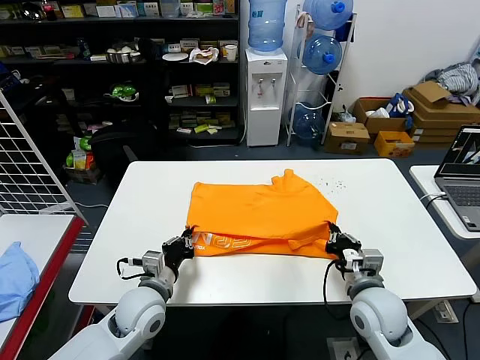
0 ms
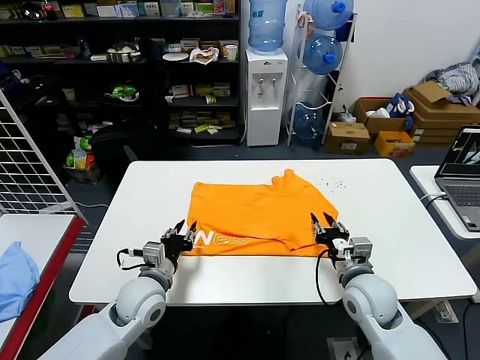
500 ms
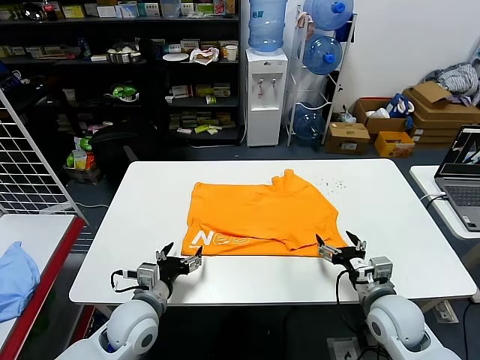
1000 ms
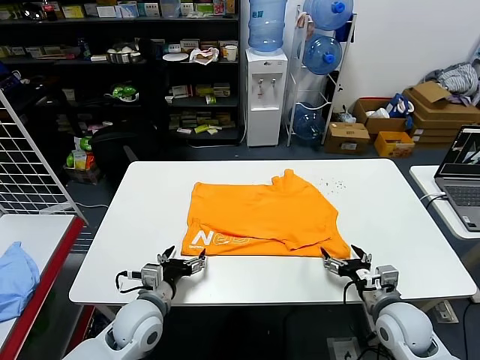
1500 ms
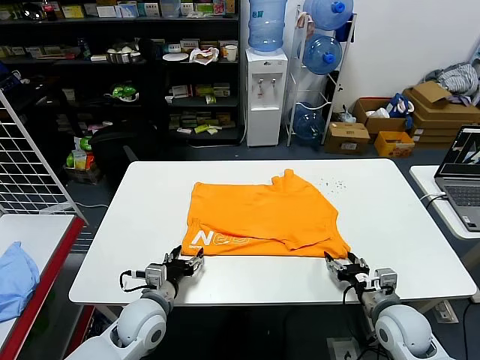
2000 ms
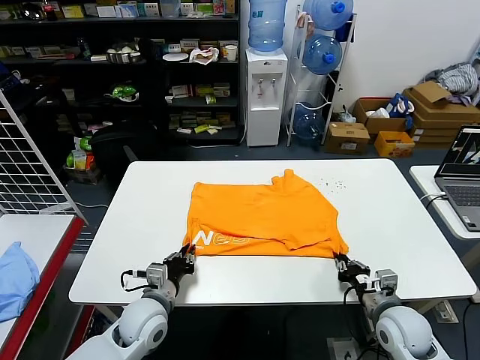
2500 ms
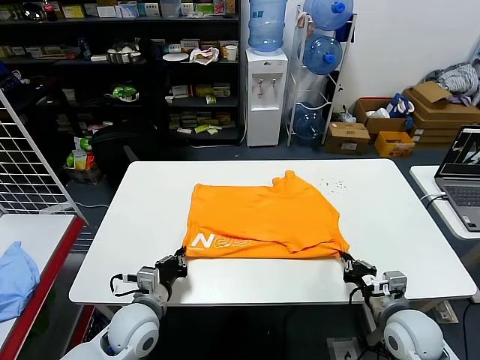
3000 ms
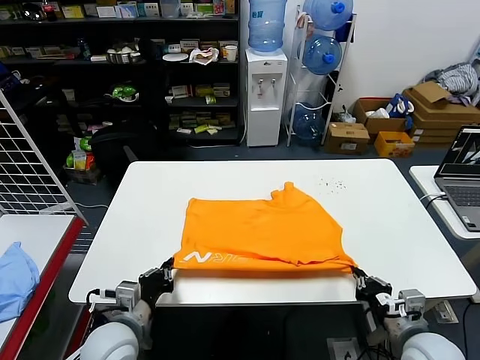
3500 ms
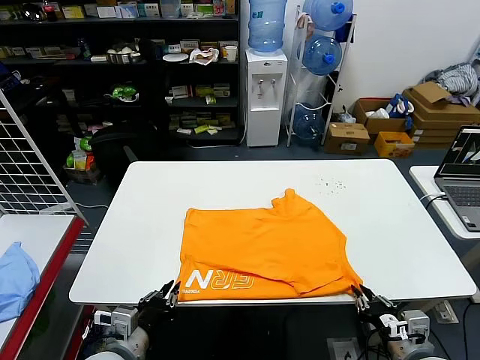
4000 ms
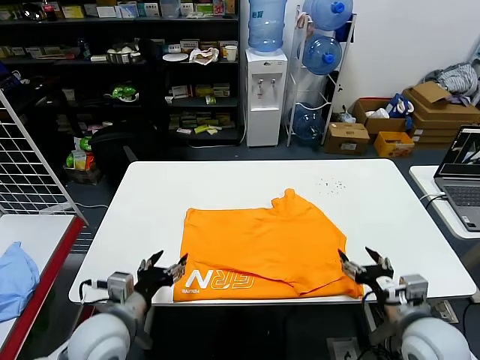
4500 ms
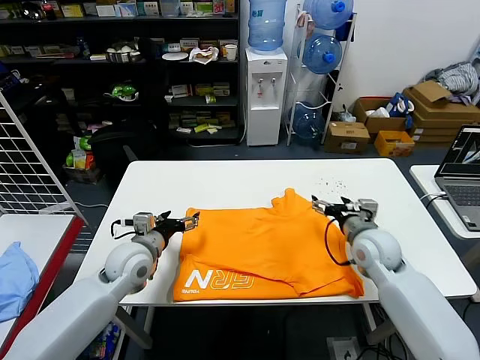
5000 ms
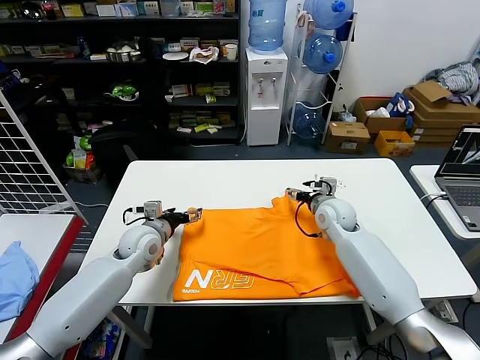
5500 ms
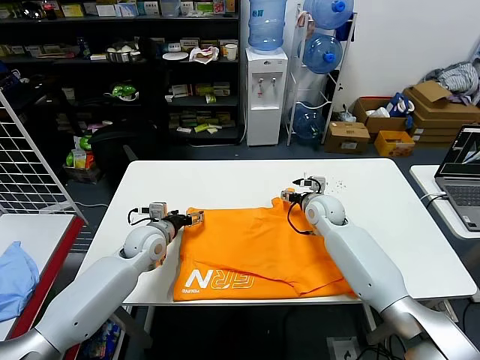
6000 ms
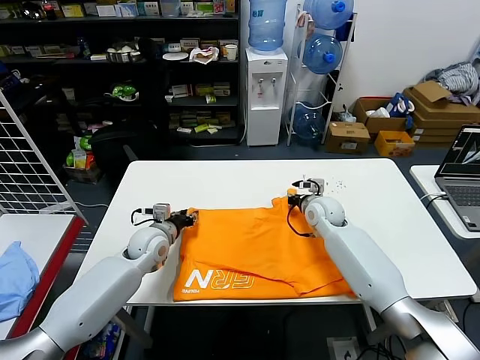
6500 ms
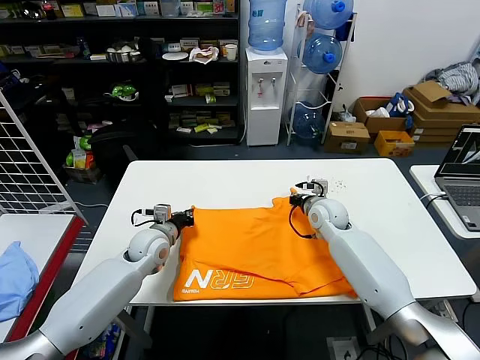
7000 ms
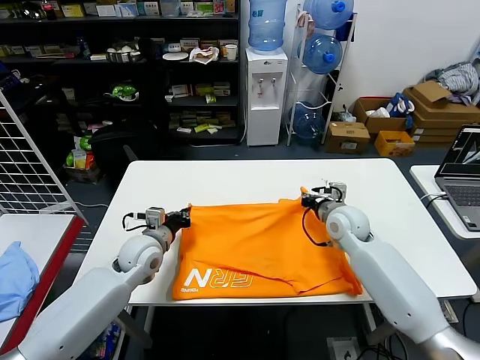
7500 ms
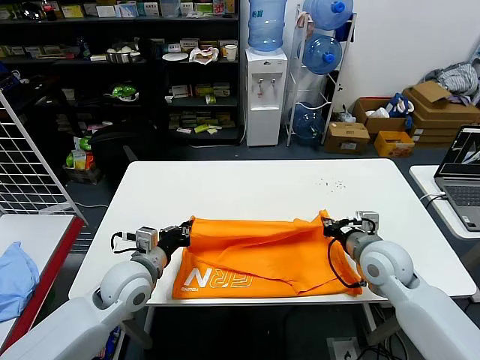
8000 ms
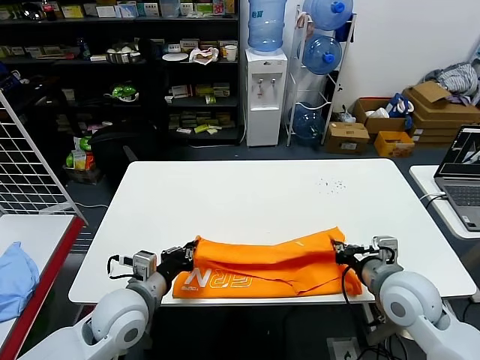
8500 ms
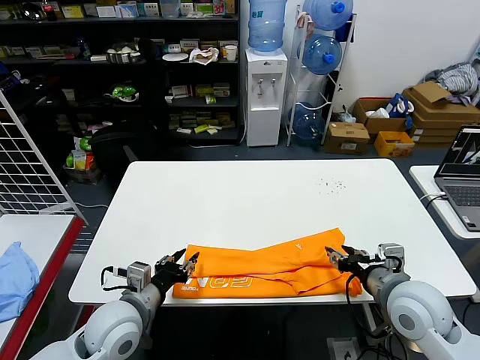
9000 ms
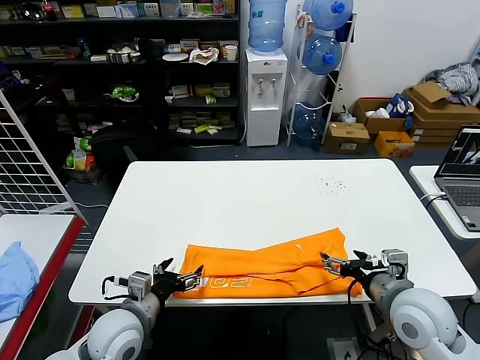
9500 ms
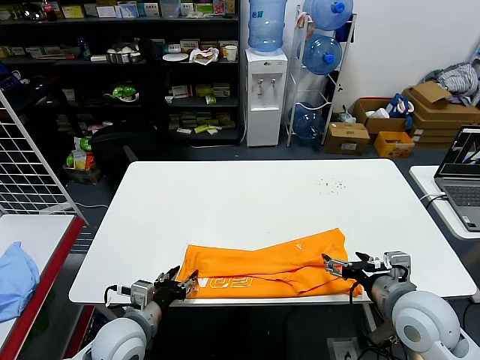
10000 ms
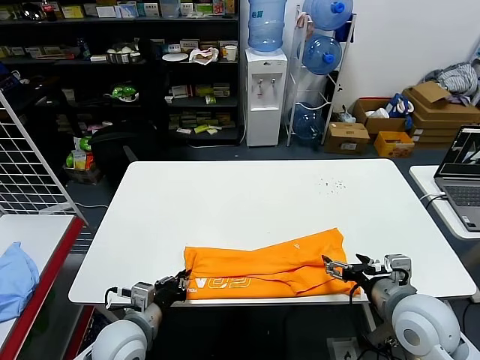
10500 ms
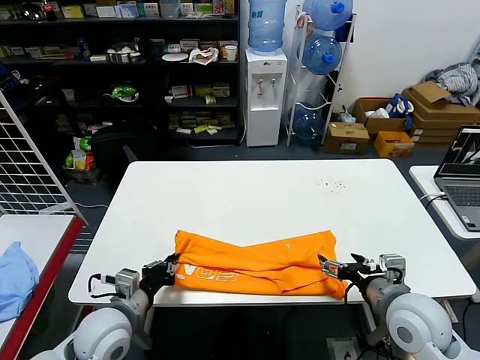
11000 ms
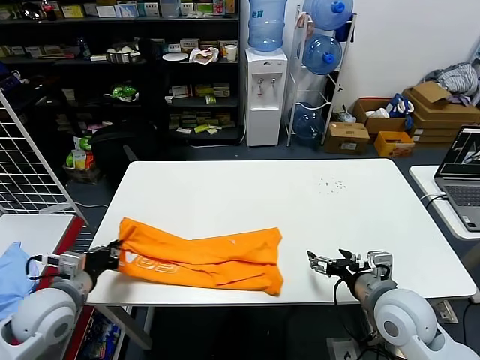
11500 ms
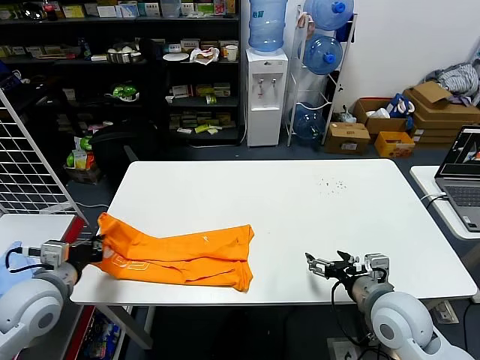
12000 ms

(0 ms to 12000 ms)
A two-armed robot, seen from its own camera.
Task of the whole recording: fold and organize the clothes.
Step, 500 ms - 4000 ms: Drag the clothes downward with both gripper.
Step, 4500 ms - 6500 ms: use both grippers simultaneously to clamp the upper edge of the clothing fabric.
Step, 7000 ms - 8500 ms: use both grippers to drag the upper edge of the fabric backward and fold it over the lower edge.
Step, 9000 ms - 10000 ms: use the left gripper to clamp the left edge of the fabric.
0 ms - 2000 ms: The right gripper shifts approximately 10 cm to the right and downward, and opens its fingers; the left gripper opens up.
2000 ms - 4000 ms: Both grippers travel together backward and upward, about 10 cm. The left gripper closes.
4000 ms - 6000 ms: The two grippers go roughly 35 cm forward. The right gripper opens its fingers. Meanwhile the left gripper opens its fingers.
6000 ms - 8000 ms: The right gripper is displaced backward by roughly 20 cm, and closes its fingers. The left gripper travels backward by approximately 10 cm, and closes up.
8000 ms - 10000 ms: The right gripper travels backward by roughly 10 cm, and opens up, while the left gripper is displaced backward and downward by roughly 10 cm, and opens its fingers.
10000 ms - 12000 ms: The left gripper heads to the left and upward, covering roughly 20 cm, and closes.

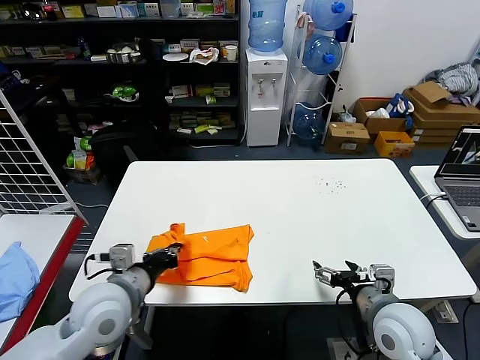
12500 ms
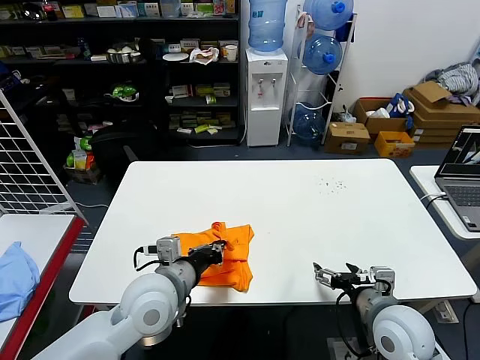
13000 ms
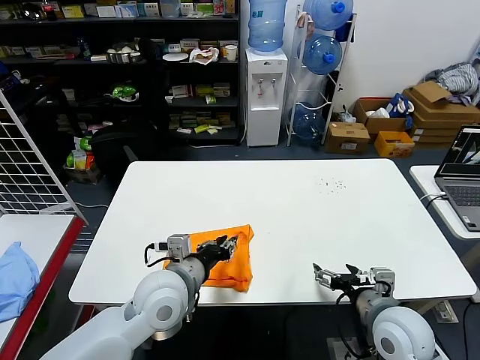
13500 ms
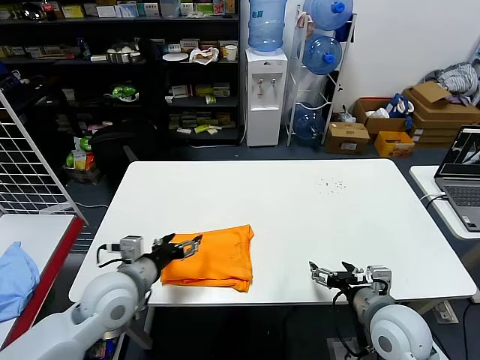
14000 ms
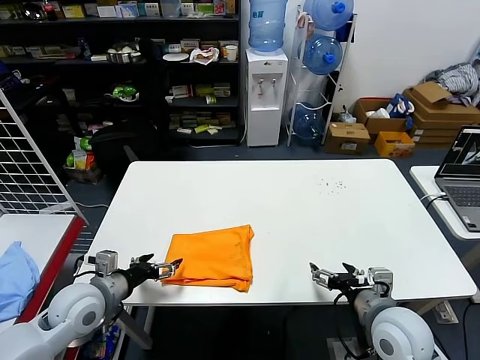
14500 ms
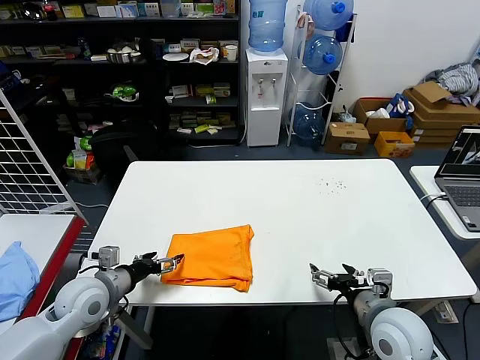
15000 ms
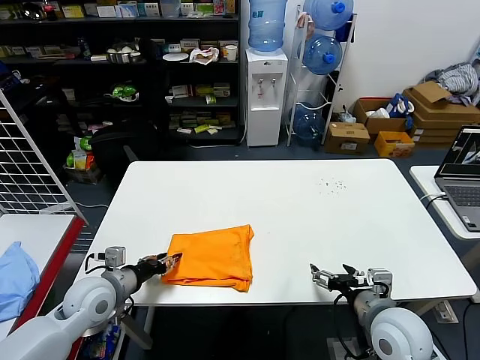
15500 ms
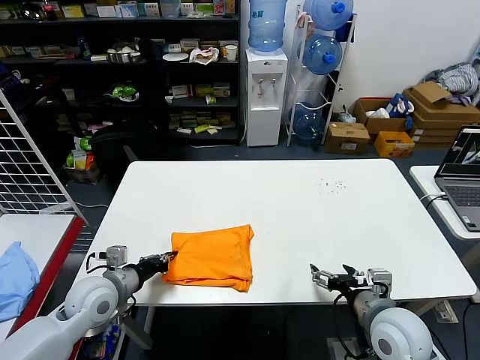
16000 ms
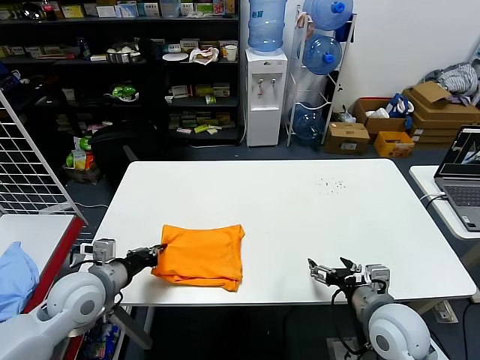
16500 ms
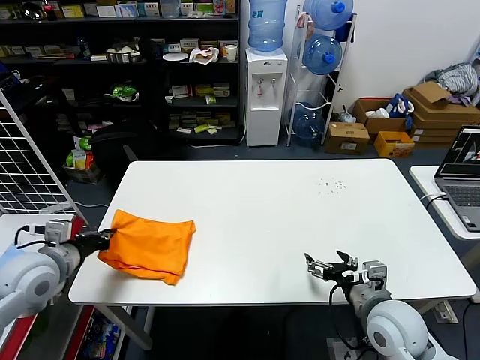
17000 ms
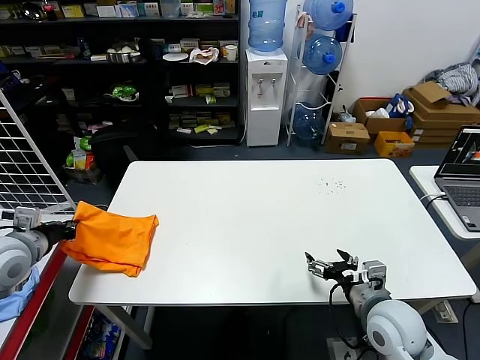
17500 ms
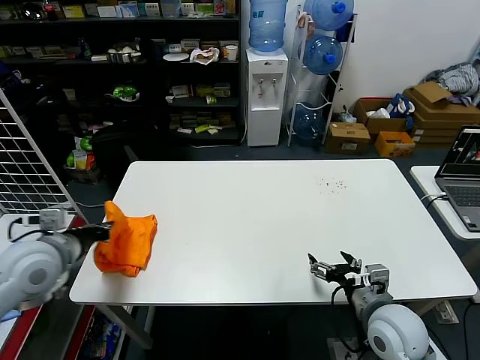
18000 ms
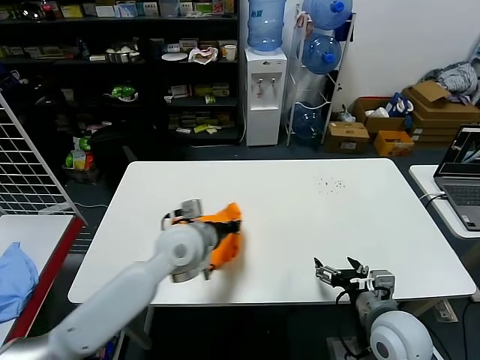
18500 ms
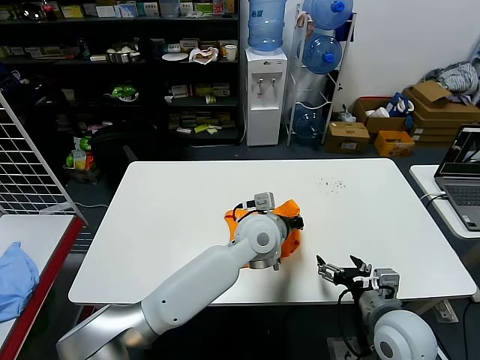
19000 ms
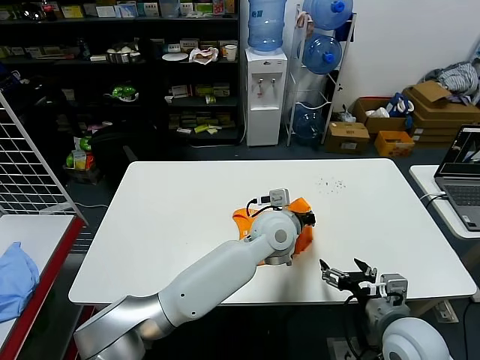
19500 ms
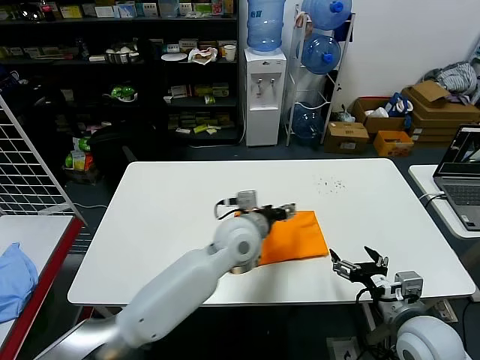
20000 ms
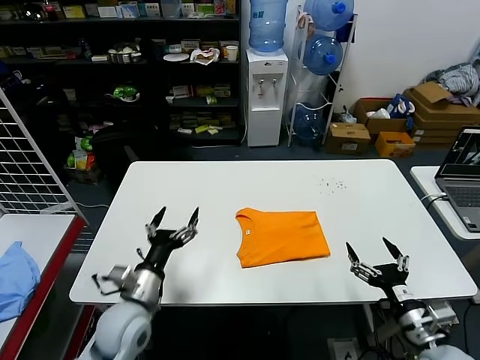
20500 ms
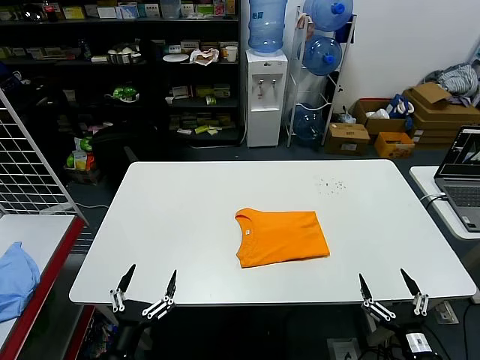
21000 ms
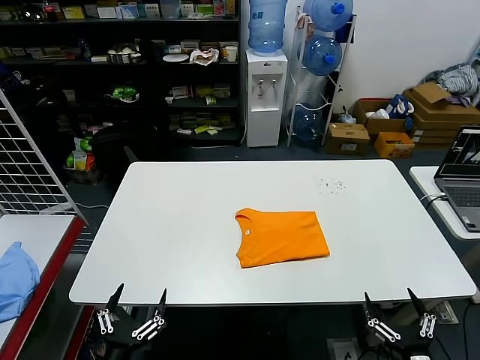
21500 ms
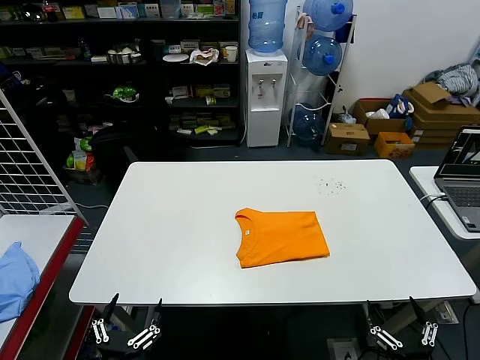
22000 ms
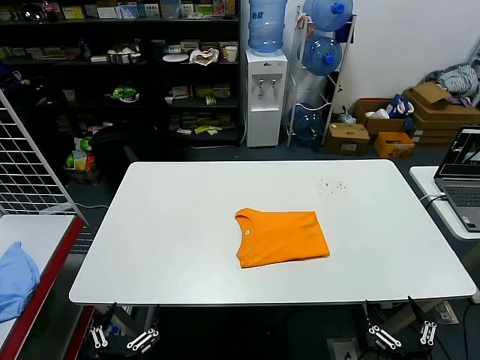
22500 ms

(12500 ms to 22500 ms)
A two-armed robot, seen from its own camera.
Task of the whole recording: fold and organize the clothes.
Step, 14000 ms - 19500 ms: Flip the folded clothes over with left gripper.
12500 ms - 14500 ms: The left gripper travels to the left and downward by about 10 cm, and opens its fingers.
14500 ms - 16500 ms: The left gripper closes its fingers.
16500 ms - 18500 ms: The left gripper travels to the right and forward by about 20 cm.
18500 ms - 20500 ms: The right gripper heads to the right, covering roughly 5 cm, while the left gripper shifts approximately 15 cm downward and backward, reaches some 20 cm to the right, then returns, and opens.
20500 ms - 22500 ms: The right gripper is displaced backward and downward by about 15 cm; the left gripper shifts about 25 cm backward.

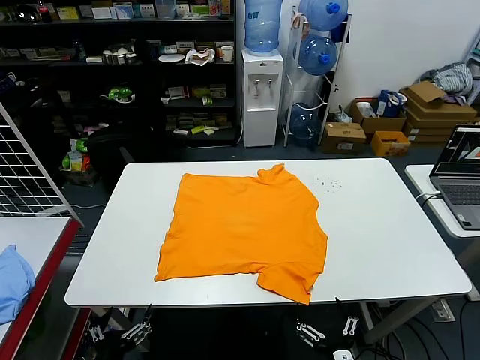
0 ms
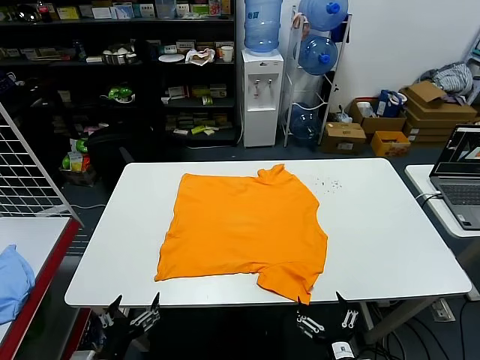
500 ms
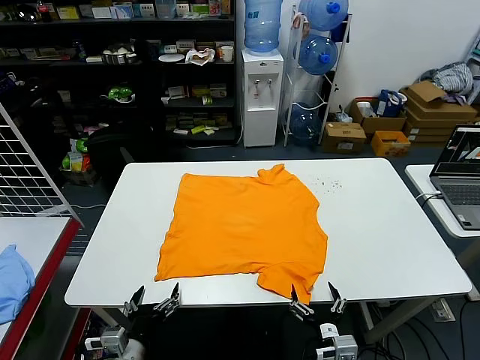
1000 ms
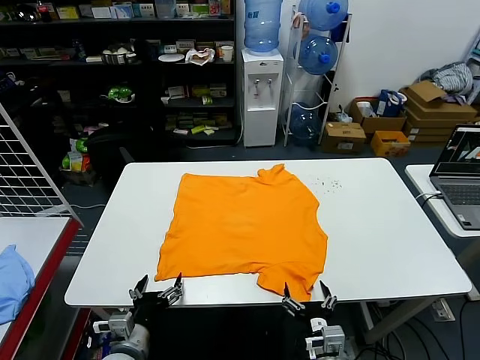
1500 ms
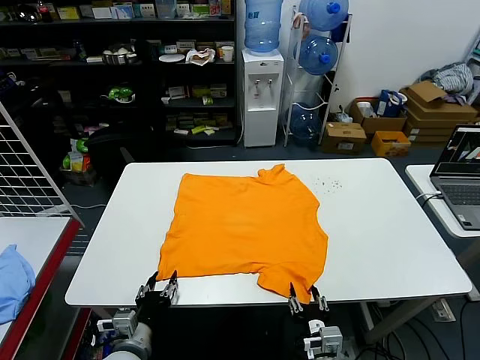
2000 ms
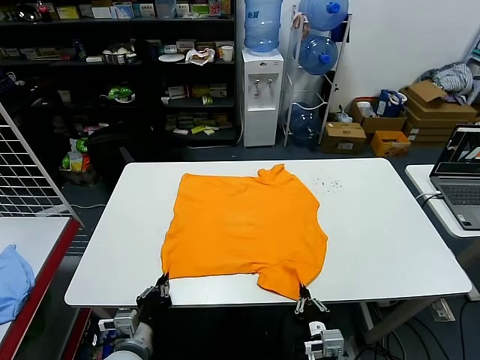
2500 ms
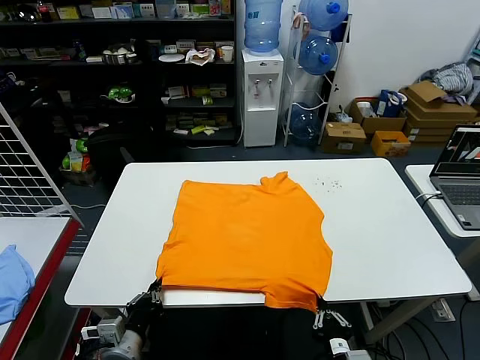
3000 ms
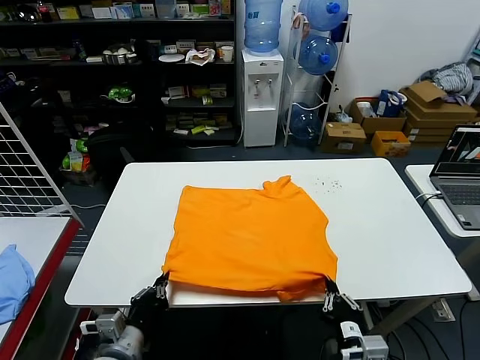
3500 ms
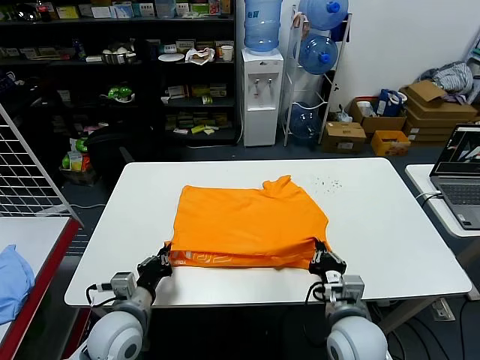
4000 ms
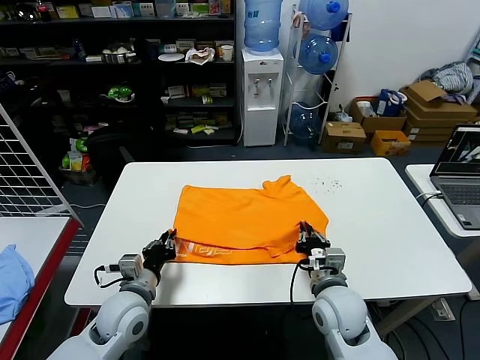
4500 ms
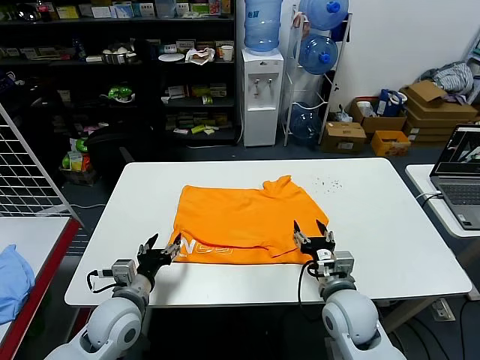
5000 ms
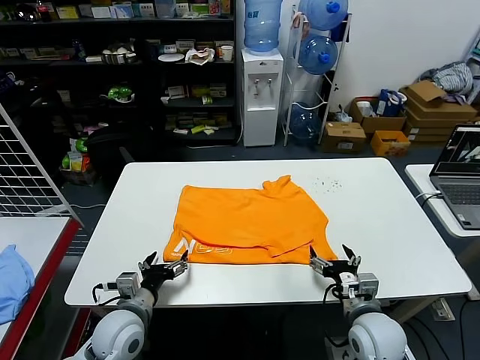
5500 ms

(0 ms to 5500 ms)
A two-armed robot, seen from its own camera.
Task of the whole recording: fold and organize the clothes.
Step, 0 ms - 2000 ms: use both grippers simultaneously to clamp the lower edge of the clothing fabric.
Step, 2500 ms - 4500 ms: use both grippers to drag the lower edge of the fabric forward and fold it over the upper edge.
2000 ms - 3500 ms: The two grippers go some 5 cm upward. The left gripper closes. Meanwhile the right gripper closes up.
3500 ms - 5500 ms: The right gripper shifts roughly 10 cm forward and to the right, and opens, while the left gripper goes roughly 10 cm forward, and opens.
